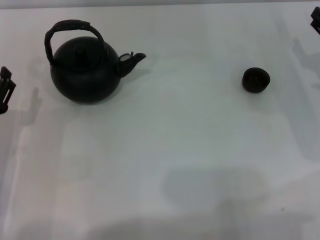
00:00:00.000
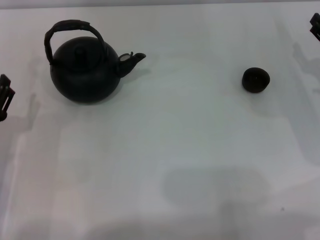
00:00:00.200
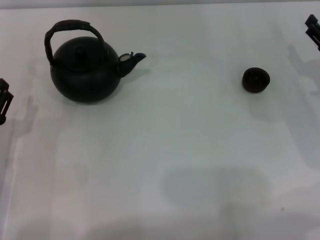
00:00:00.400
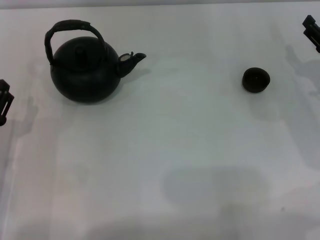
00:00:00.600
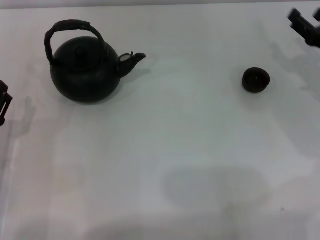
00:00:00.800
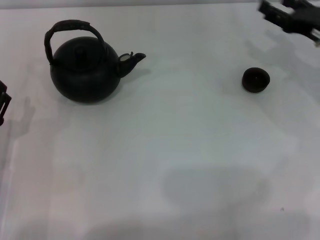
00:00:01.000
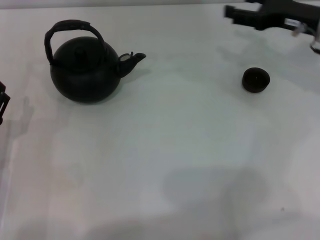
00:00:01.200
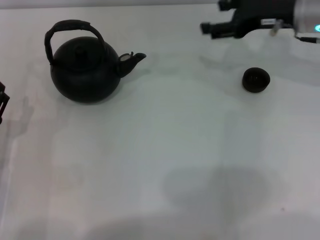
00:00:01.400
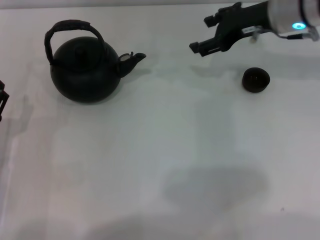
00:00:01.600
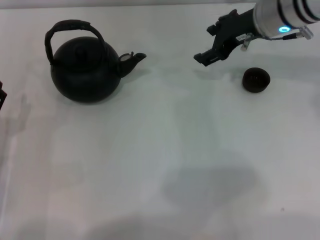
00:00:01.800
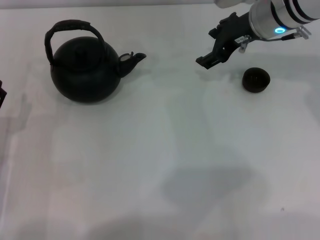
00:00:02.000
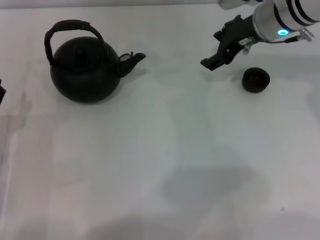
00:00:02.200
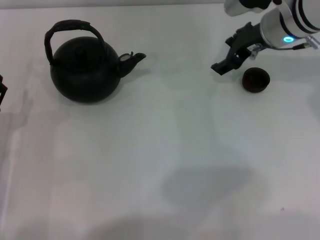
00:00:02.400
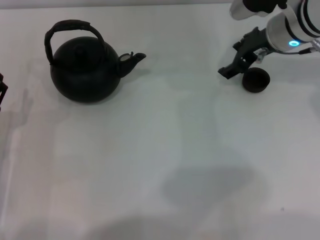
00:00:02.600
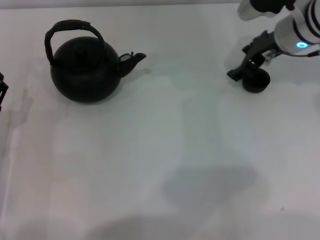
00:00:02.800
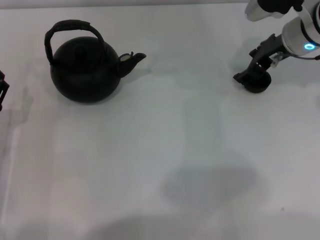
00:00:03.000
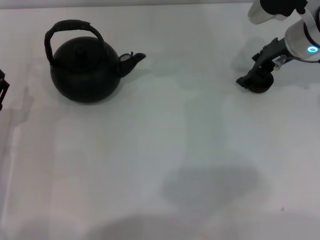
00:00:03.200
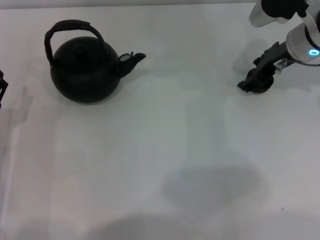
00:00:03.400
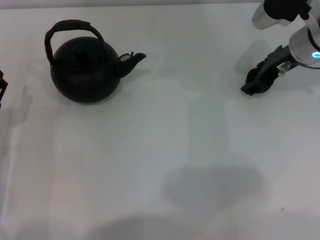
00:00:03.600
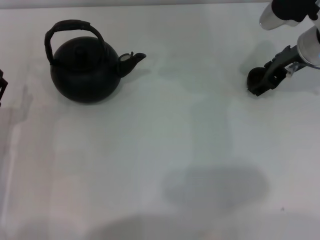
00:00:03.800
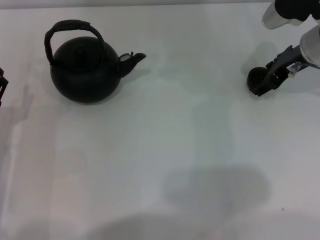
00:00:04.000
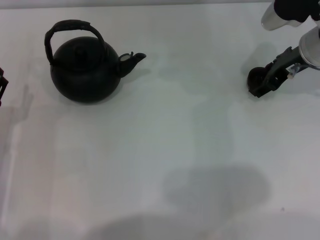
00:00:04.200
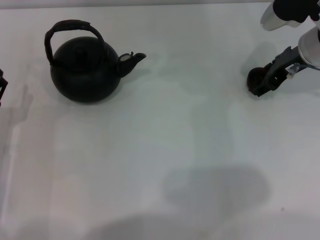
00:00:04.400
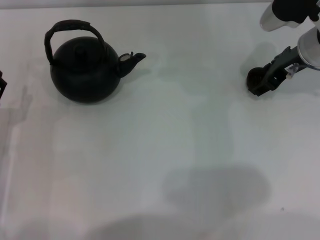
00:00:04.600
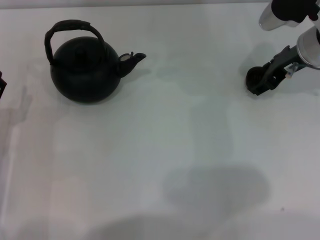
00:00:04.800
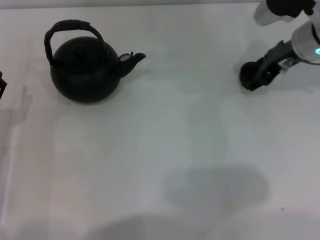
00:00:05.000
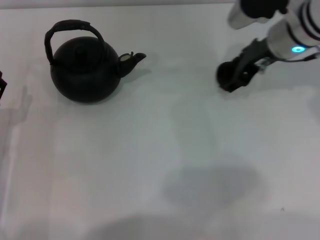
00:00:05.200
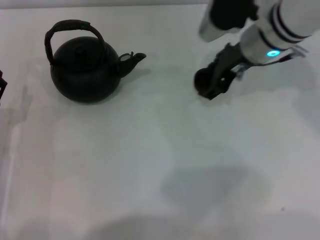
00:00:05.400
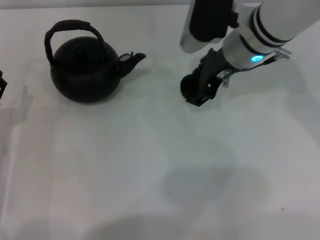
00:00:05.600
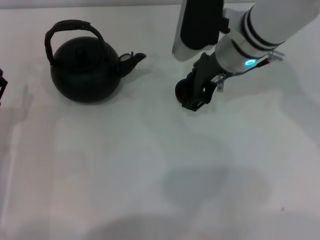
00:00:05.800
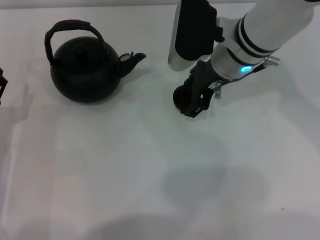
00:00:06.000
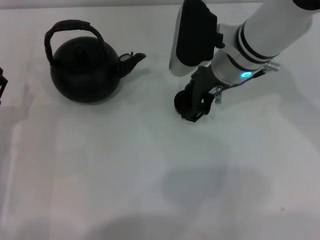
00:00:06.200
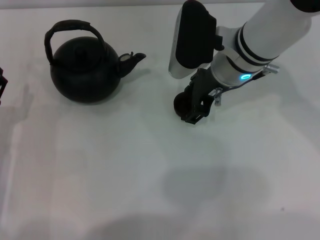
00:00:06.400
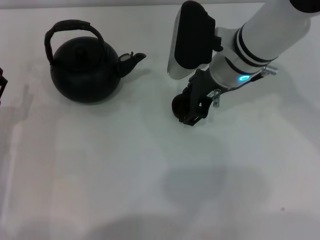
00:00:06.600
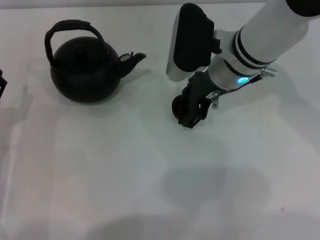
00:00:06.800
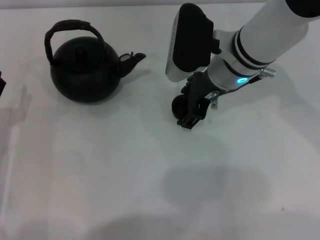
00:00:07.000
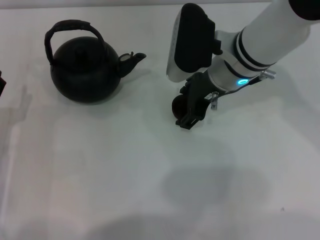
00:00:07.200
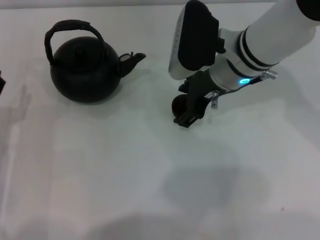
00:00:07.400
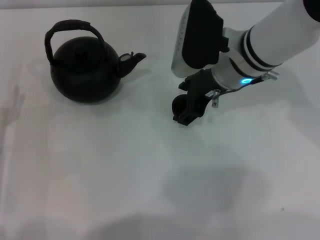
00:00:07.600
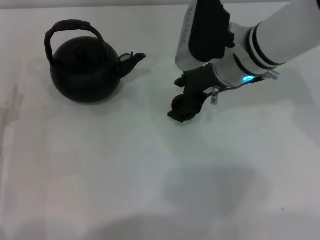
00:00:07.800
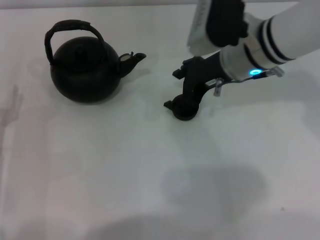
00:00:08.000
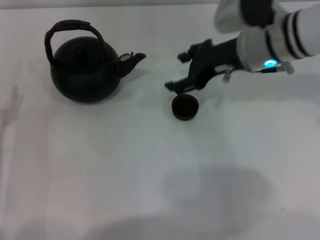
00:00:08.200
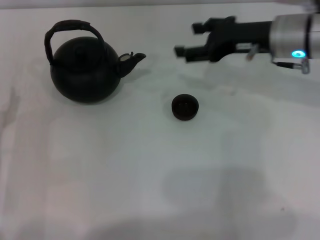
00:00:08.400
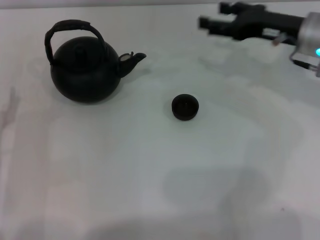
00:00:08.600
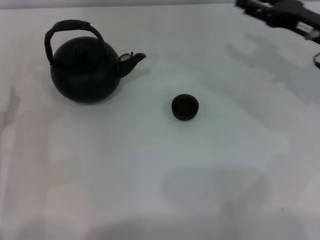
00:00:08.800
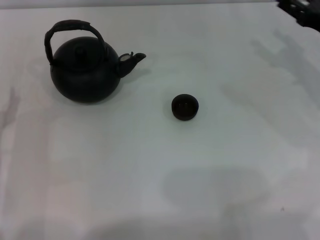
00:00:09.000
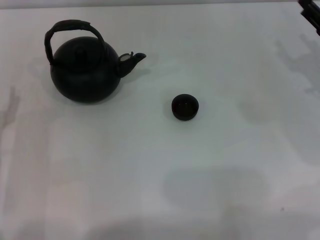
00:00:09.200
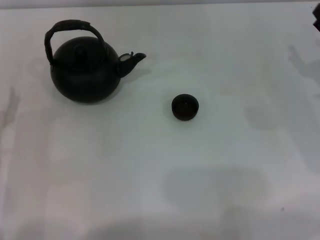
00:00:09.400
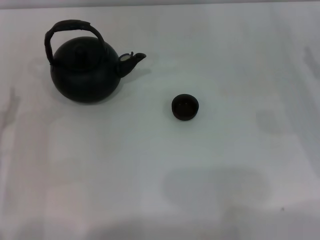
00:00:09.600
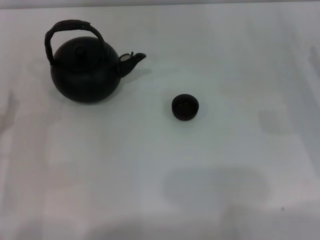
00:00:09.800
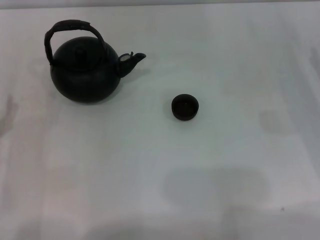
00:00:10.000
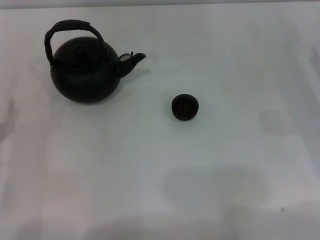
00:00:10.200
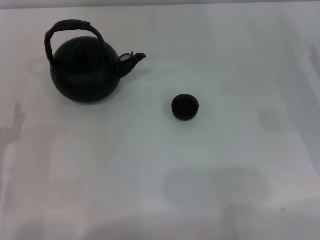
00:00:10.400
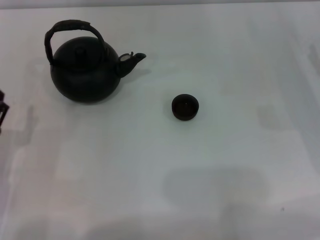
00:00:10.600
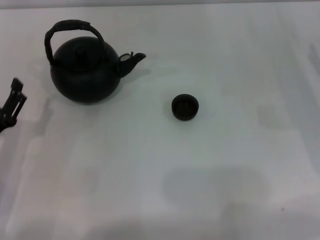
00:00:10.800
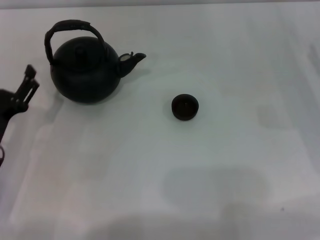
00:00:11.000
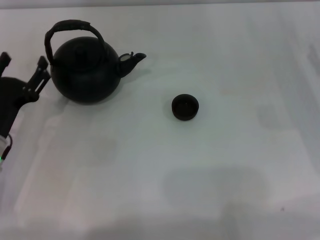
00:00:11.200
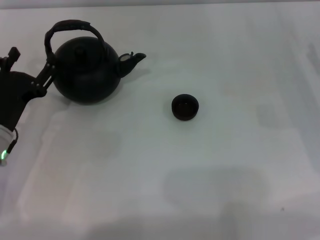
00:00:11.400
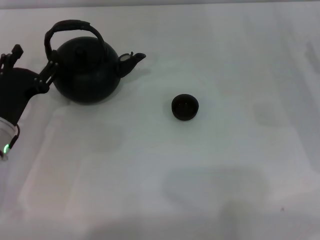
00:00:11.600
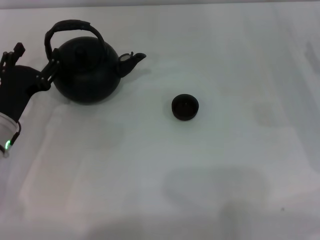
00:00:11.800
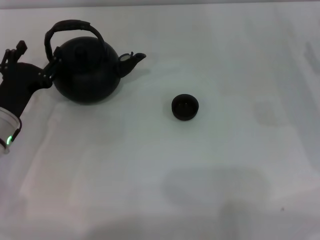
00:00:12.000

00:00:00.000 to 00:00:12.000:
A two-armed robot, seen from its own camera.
Task of the whole recording: Grasp the handle of the teapot with one hand and pour tea into the teacup.
Step, 00:00:00.000 to 00:00:05.200: Pick up the teacup with the right gripper.
Step, 00:00:05.400 to 00:00:08.000: Place the teacup in the center of view with the right gripper.
00:00:00.000 to 00:00:01.600: The right gripper heads to the left, upward and forward, covering roughly 20 cm.
00:00:03.000 to 00:00:04.400: There are only small adjustments of the grippers.
00:00:04.400 to 00:00:06.000: The right gripper goes approximately 15 cm to the left.
00:00:06.000 to 00:00:07.600: The grippers make only small movements.
00:00:07.600 to 00:00:09.000: The right gripper shifts roughly 20 cm to the right.
00:00:09.000 to 00:00:10.400: The right gripper changes place by about 5 cm.
00:00:10.400 to 00:00:12.000: The left gripper travels forward by about 10 cm.

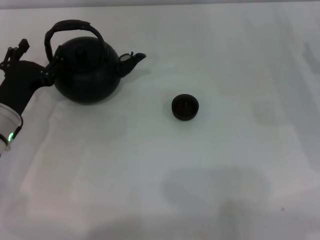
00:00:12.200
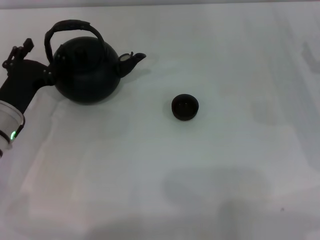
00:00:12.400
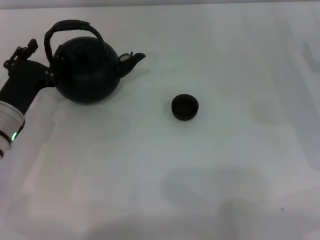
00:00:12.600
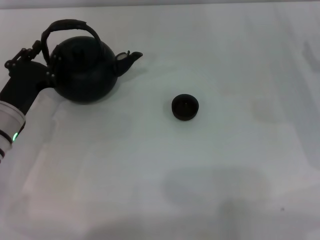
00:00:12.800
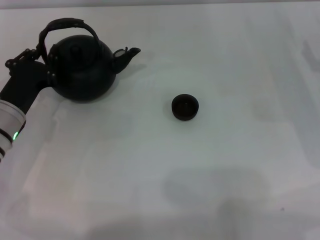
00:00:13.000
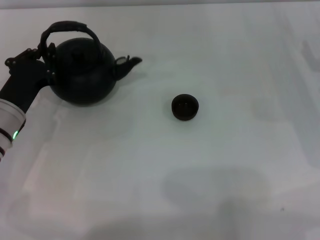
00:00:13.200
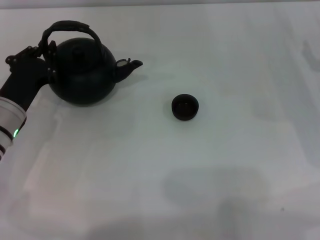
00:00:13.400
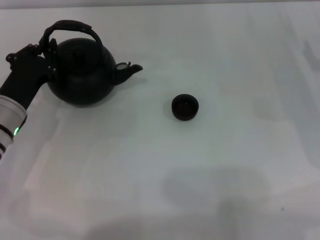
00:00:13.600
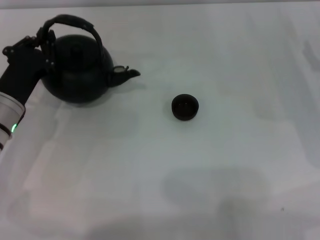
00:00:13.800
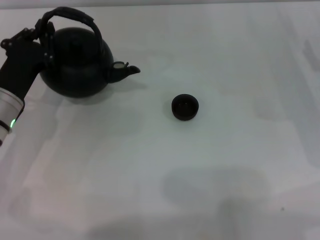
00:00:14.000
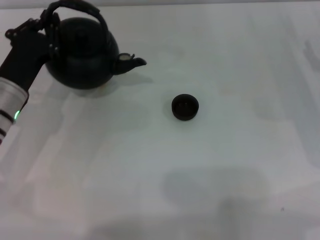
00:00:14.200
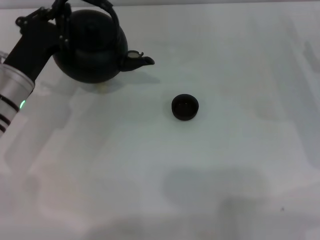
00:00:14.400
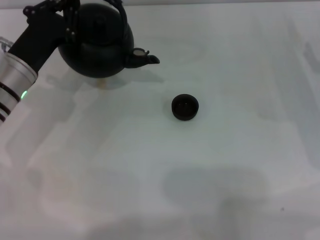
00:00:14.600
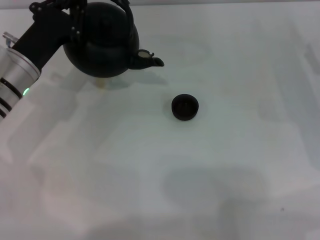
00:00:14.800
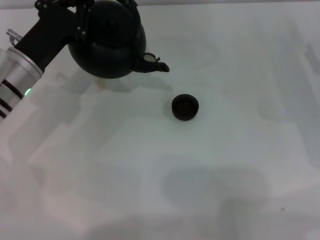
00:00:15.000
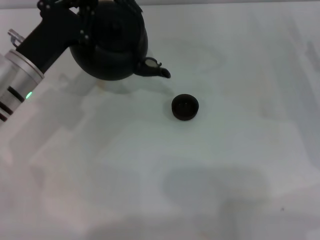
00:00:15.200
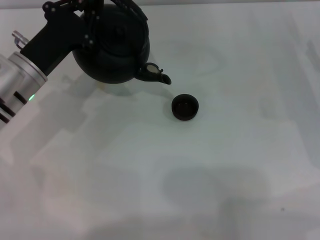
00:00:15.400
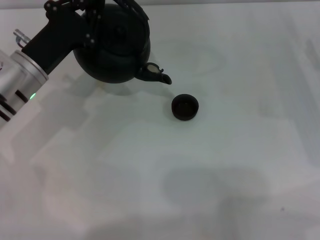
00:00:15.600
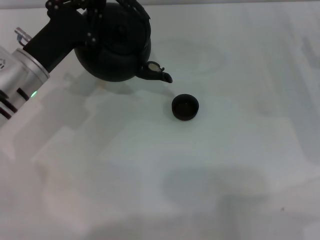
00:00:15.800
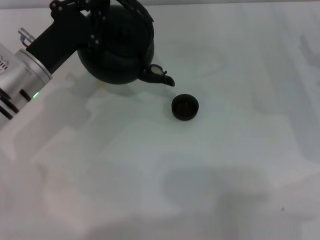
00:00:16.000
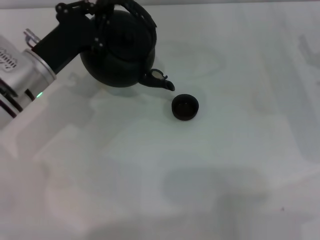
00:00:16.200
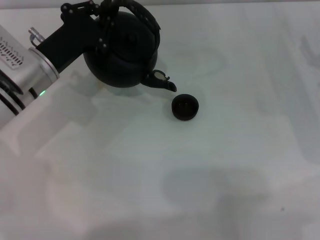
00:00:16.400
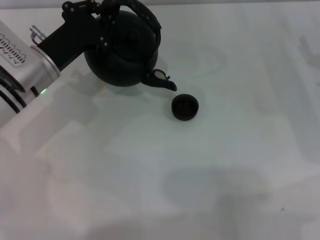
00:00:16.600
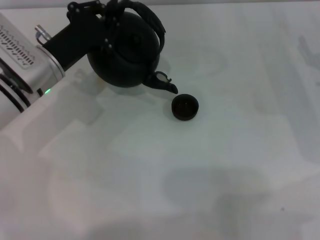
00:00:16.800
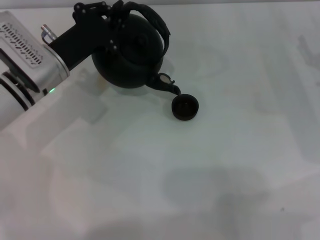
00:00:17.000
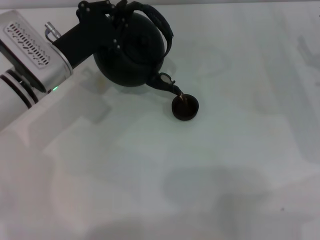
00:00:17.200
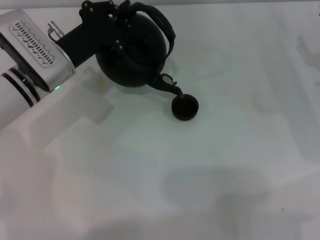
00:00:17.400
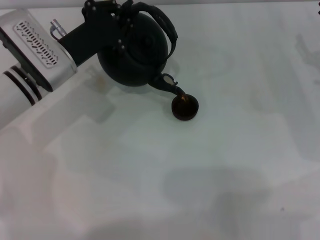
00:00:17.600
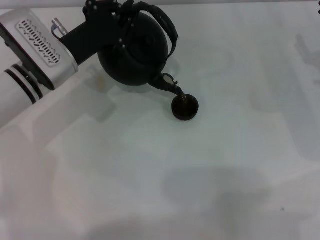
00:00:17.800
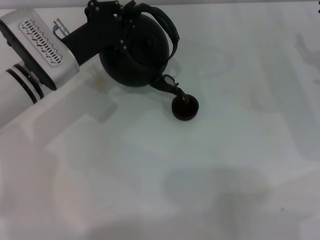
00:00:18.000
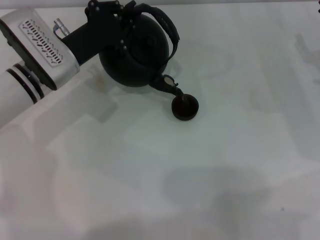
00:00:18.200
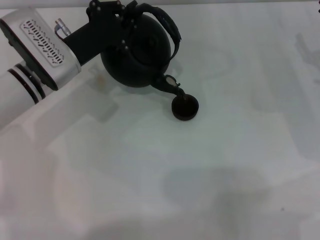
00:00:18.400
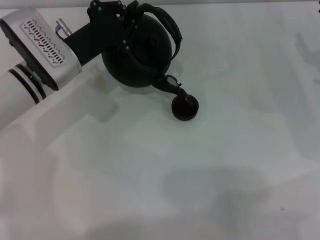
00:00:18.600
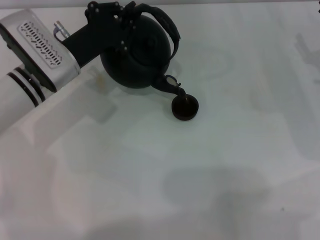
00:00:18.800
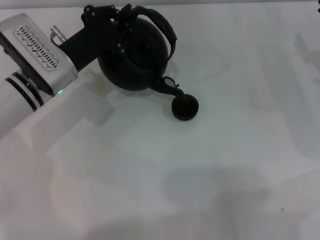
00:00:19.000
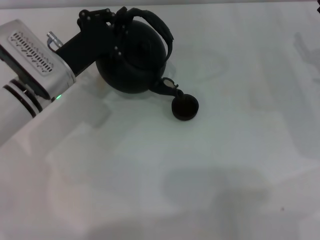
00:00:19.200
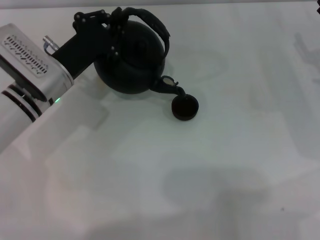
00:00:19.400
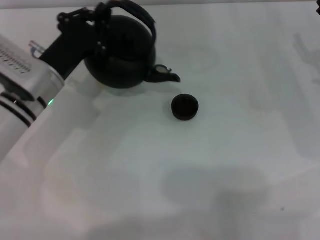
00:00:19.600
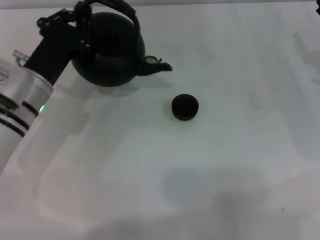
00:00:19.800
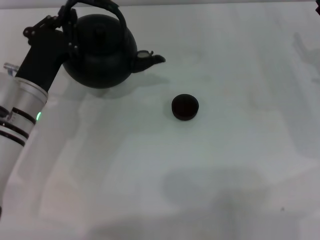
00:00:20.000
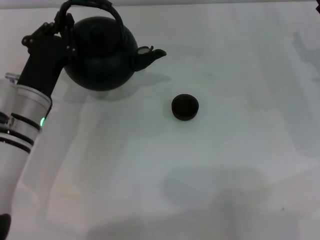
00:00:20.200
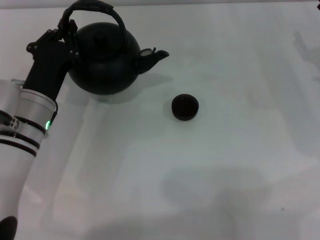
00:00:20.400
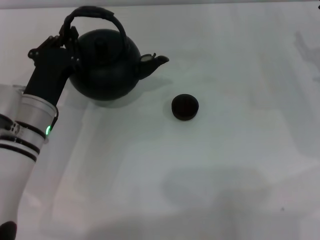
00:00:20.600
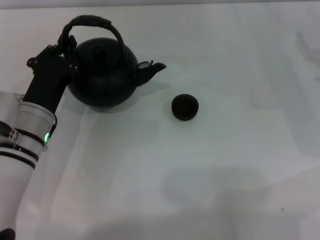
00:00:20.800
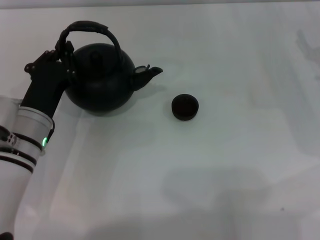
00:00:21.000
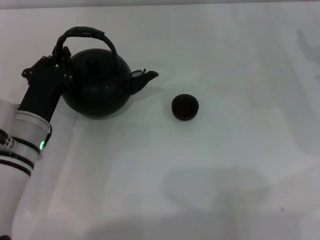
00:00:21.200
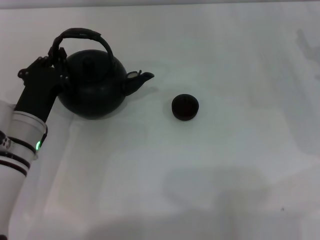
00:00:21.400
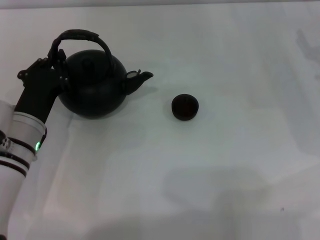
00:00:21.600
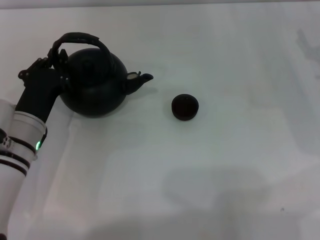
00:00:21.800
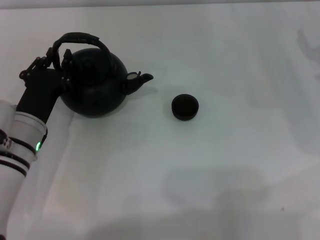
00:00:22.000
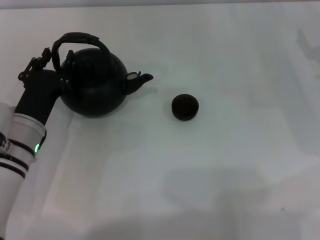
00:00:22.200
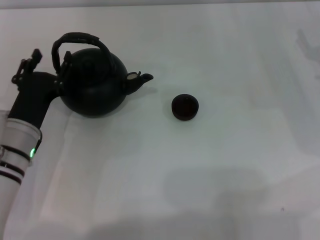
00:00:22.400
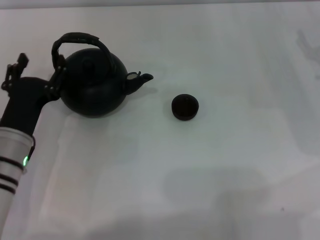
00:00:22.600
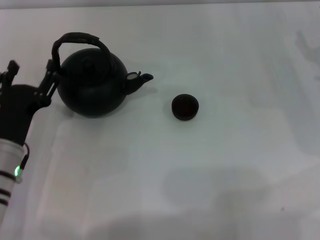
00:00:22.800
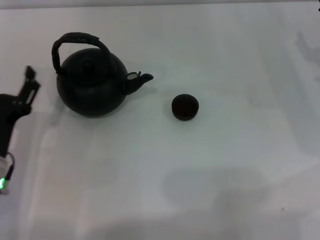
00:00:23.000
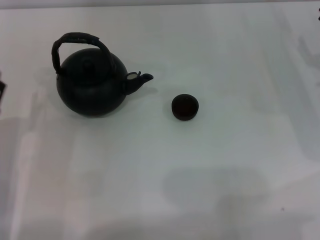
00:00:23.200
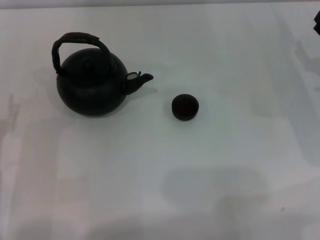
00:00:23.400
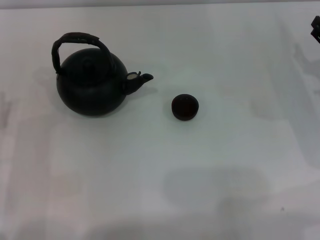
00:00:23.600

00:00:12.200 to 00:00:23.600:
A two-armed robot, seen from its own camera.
Task of the whole recording: Grasp the handle of the teapot with one hand and pour tea into the teacup.
Step, 00:00:12.200 to 00:00:14.200: Pick up the teapot with the left gripper.
Step, 00:00:14.400 to 00:00:19.600: Pour tea into the teacup with the left gripper.
Step, 00:00:19.800 to 00:00:22.600: Put down the teapot with the left gripper.
00:00:12.200 to 00:00:13.600: The left gripper closes its fingers.
00:00:13.600 to 00:00:15.000: The left gripper shifts approximately 5 cm upward.
00:00:15.000 to 00:00:16.400: The grippers stay close to where they were, moving slightly.
00:00:16.400 to 00:00:19.400: The grippers make only small movements.
00:00:19.400 to 00:00:20.800: The left gripper heads backward, covering about 5 cm.
00:00:20.800 to 00:00:22.200: The grippers make only small movements.
00:00:22.200 to 00:00:23.600: The left gripper is displaced to the left and backward by approximately 10 cm, and opens up.
